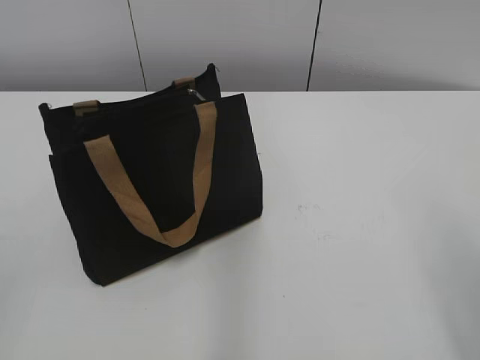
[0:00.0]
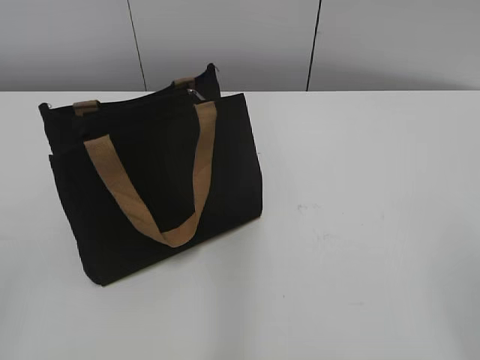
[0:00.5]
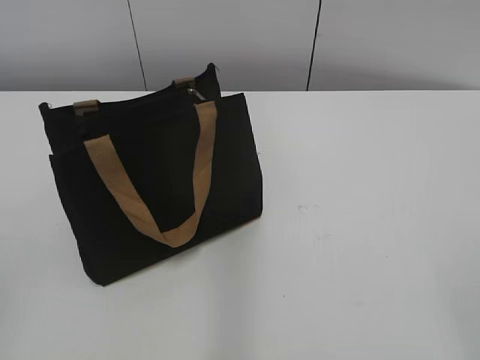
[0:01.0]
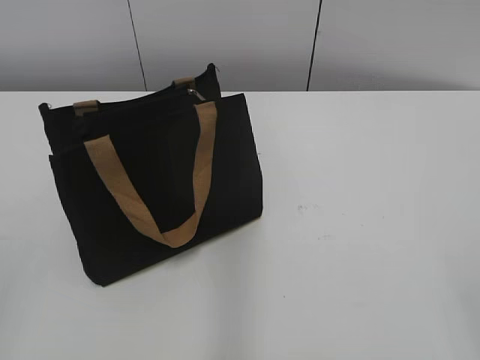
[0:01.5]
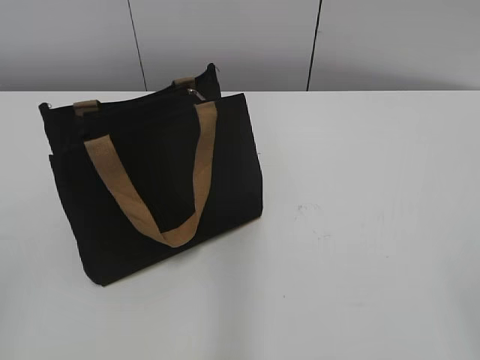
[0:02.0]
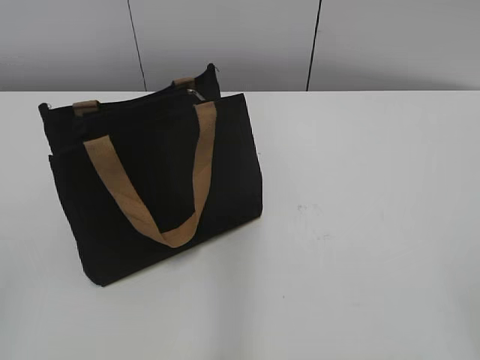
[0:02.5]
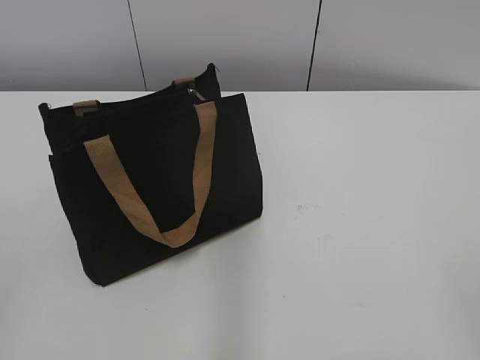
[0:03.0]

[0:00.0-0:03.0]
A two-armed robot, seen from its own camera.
0:01.5 to 0:03.0: Both grippers stay about where they are.

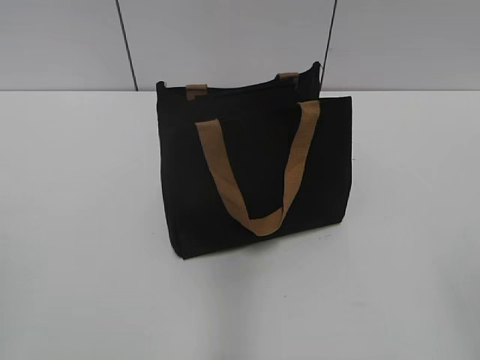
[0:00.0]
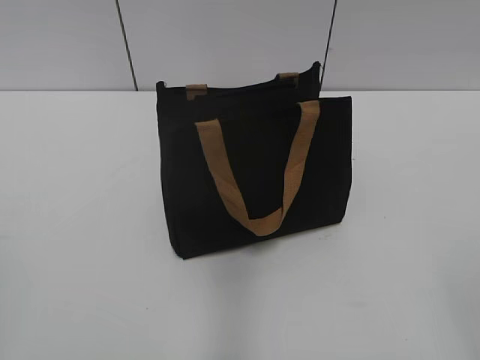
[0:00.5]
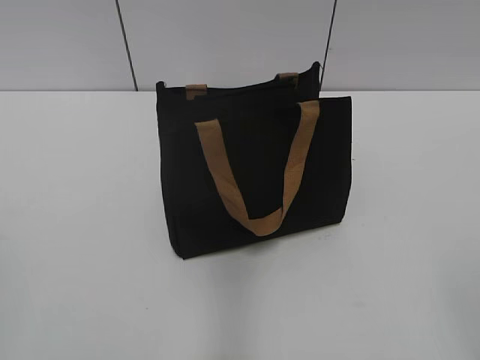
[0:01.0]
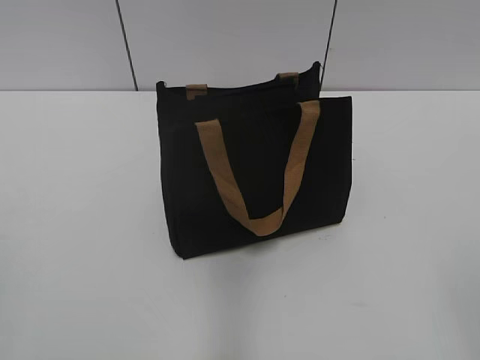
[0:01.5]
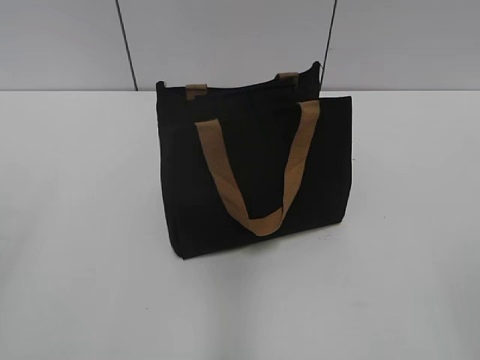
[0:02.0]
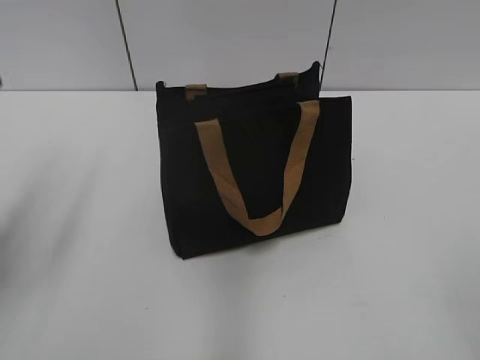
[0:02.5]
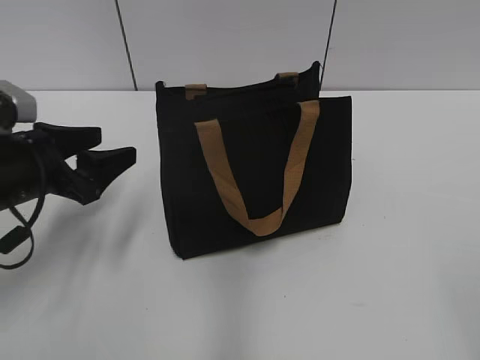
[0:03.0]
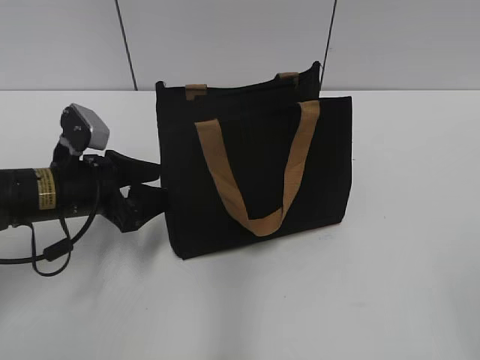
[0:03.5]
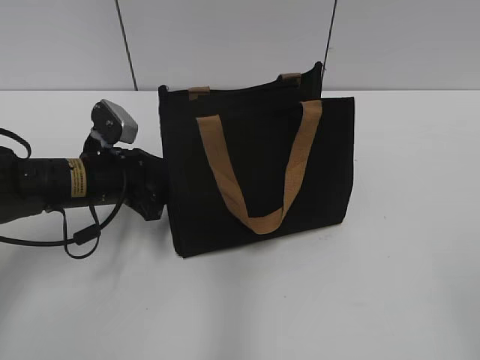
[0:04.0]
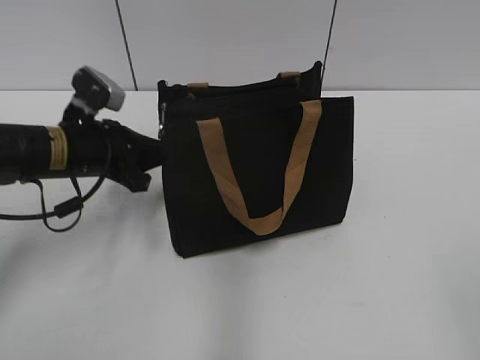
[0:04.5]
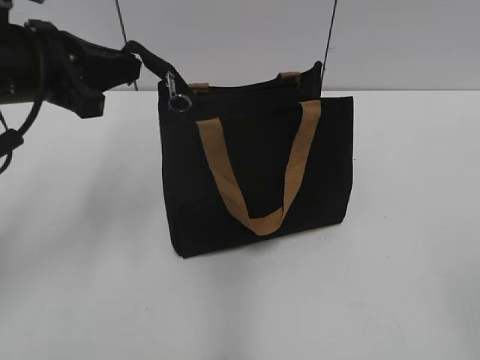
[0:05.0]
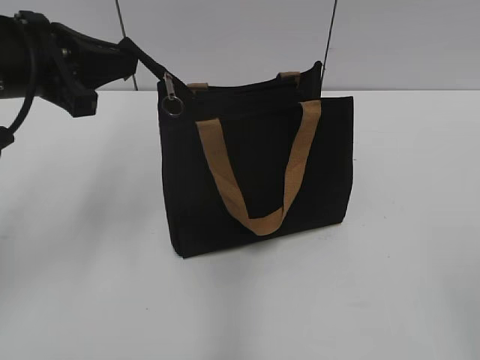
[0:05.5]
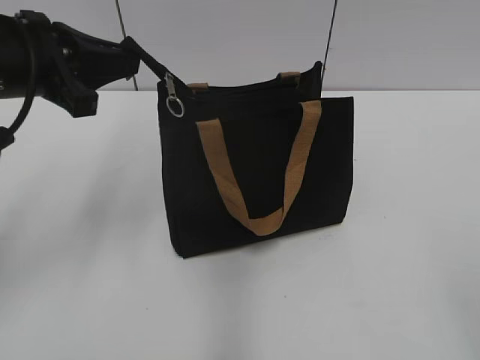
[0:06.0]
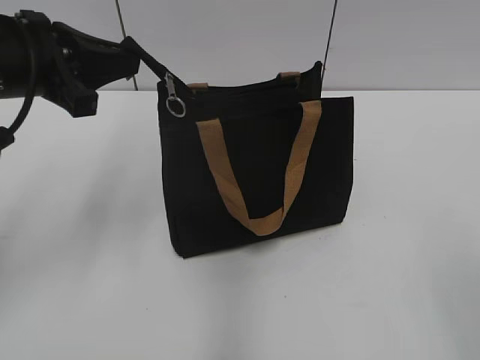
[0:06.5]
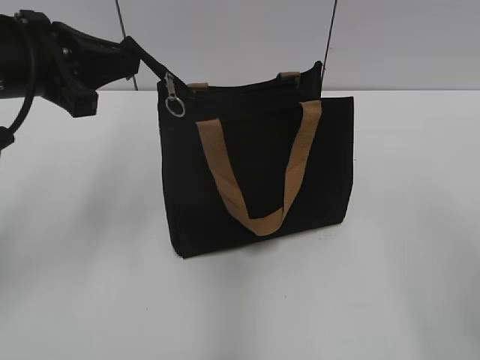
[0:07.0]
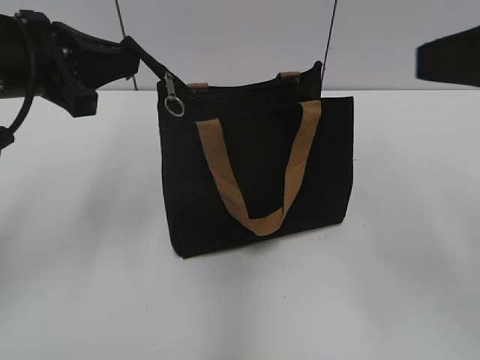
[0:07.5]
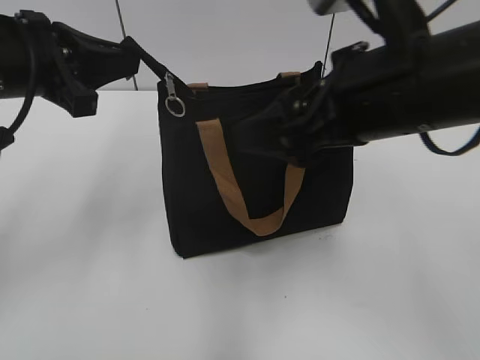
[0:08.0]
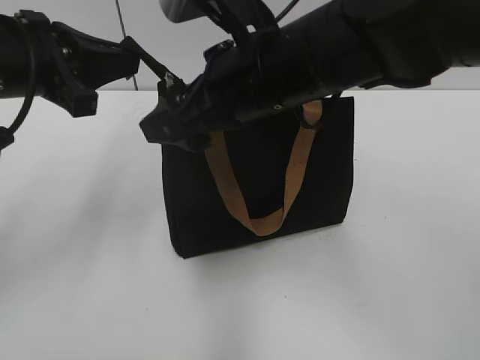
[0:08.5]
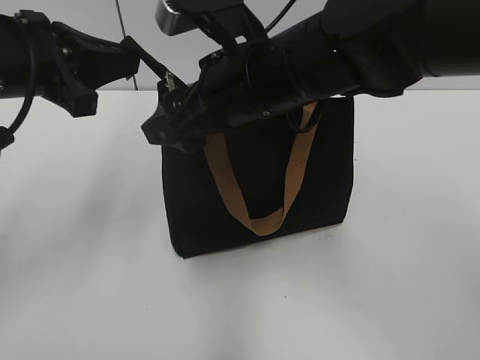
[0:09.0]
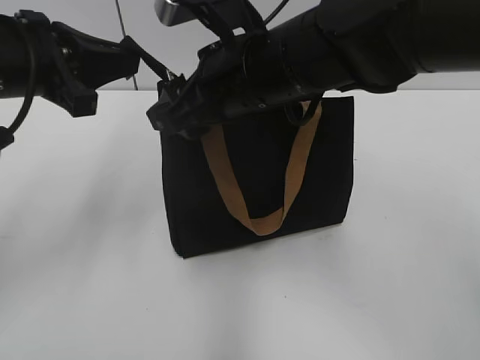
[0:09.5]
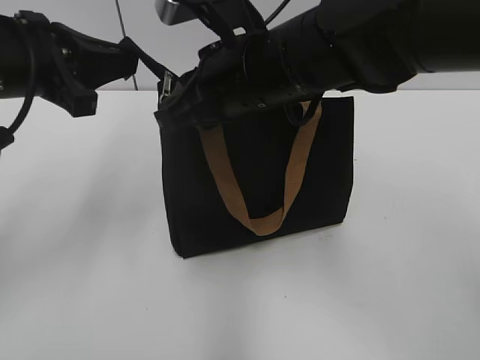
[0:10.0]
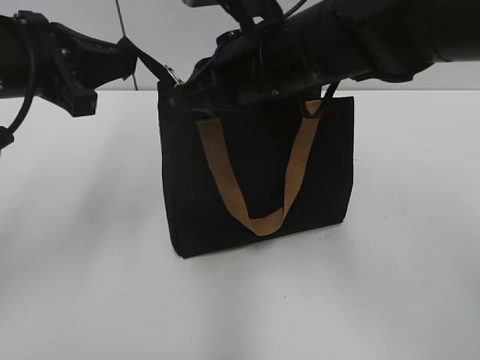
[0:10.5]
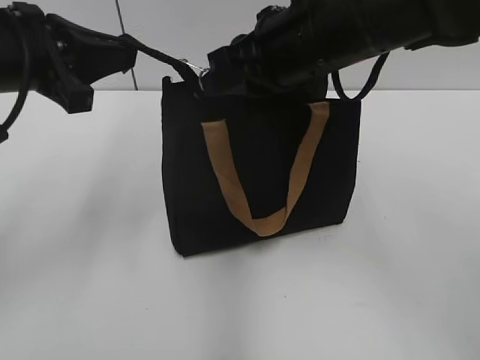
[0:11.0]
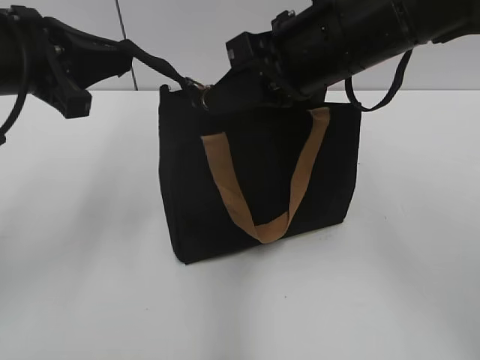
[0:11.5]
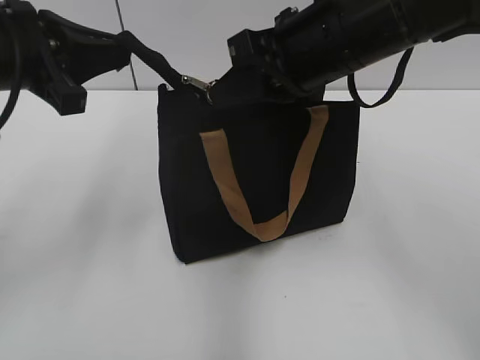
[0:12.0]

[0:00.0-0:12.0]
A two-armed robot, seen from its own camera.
0:02.0 to 0:04.0: The left gripper travels forward, downward and to the right by roughly 40 cm.
0:04.0 to 0:06.0: The left gripper is displaced upward by some 15 cm, and closes up.
0:06.0 to 0:08.0: The right gripper shifts approximately 25 cm forward and to the left.
0:08.0 to 0:10.0: The right gripper shifts approximately 15 cm to the left and forward, and closes its fingers.
0:10.0 to 0:12.0: The right gripper shifts approximately 5 cm to the right.

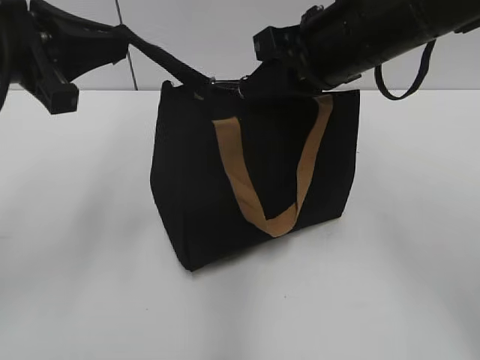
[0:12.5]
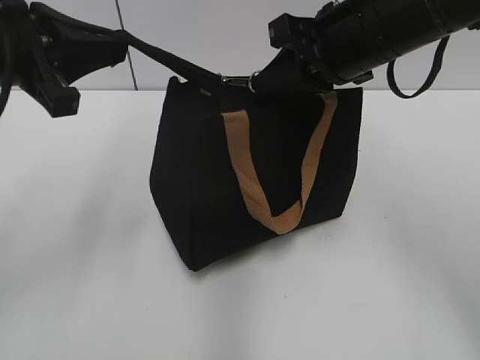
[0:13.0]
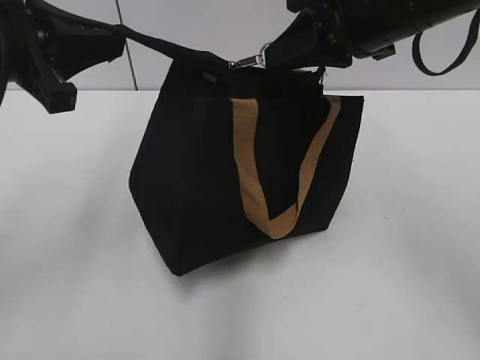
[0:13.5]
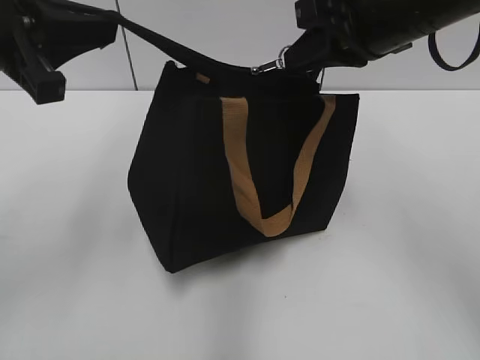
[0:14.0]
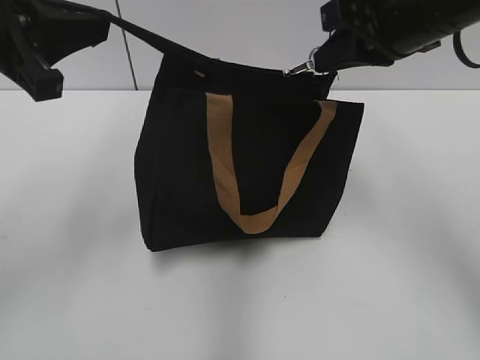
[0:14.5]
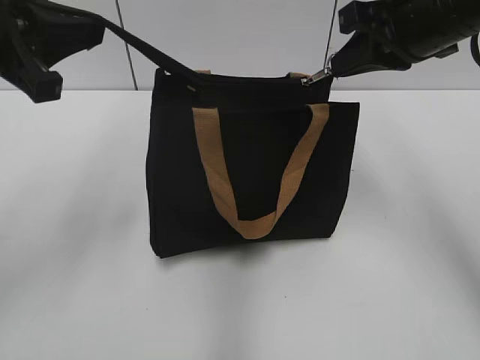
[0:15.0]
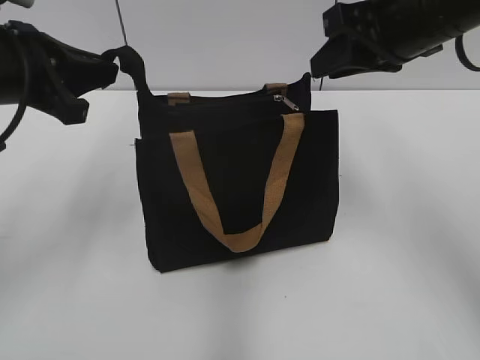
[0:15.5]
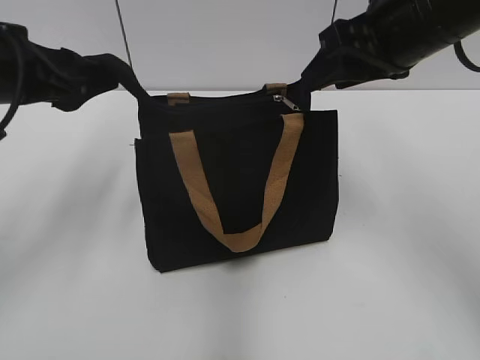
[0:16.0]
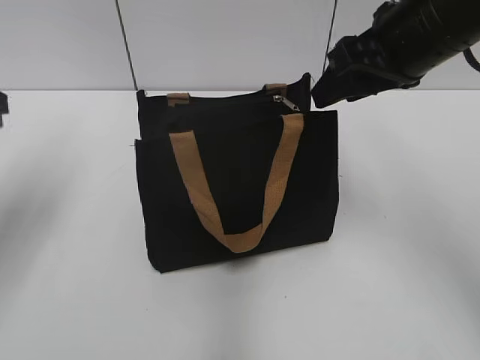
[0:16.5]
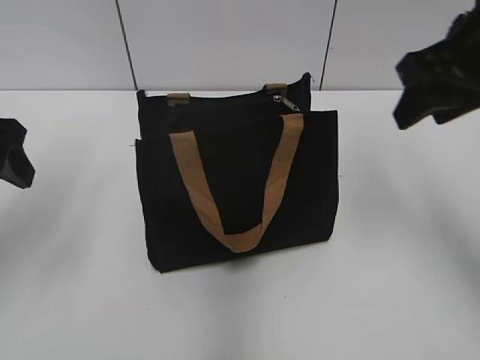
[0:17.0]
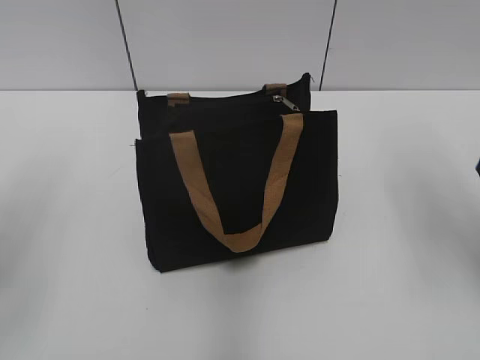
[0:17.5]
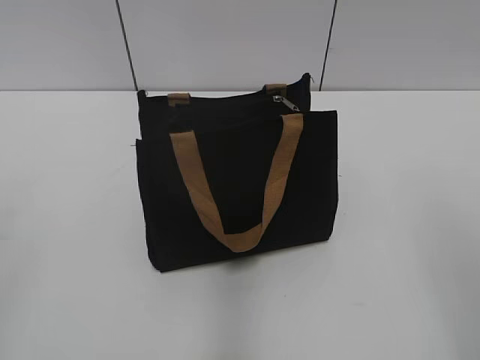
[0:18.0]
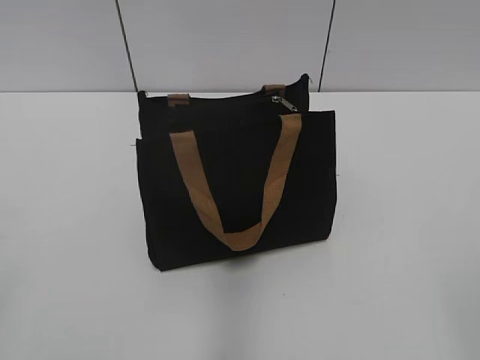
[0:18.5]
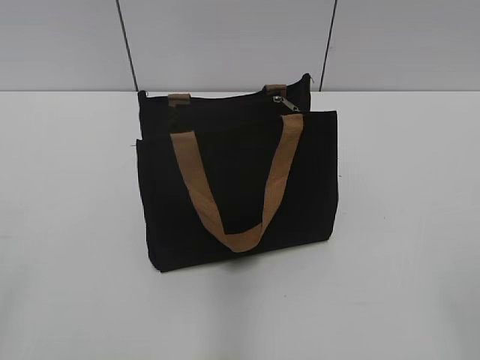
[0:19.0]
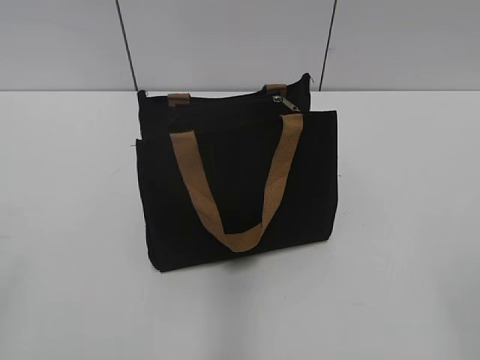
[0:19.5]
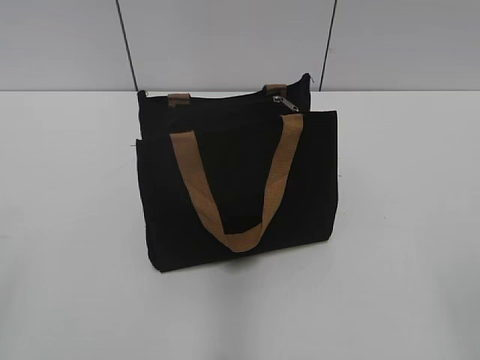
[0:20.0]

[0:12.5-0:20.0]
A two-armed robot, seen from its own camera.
Step, 0:12.5 to 0:15.0: Zip up the bag with your right hand.
Step, 0:15.5 to 0:16.0: Grab the zipper with your left hand.
0:12.5 to 0:14.5: The right gripper shifts some 5 cm to the right.
0:14.5 to 0:16.5: The right gripper opens up; the left gripper is displaced to the left by some 5 cm, and opens up.
0:16.5 to 0:18.0: The left gripper goes some 20 cm backward. The right gripper goes approximately 20 cm backward and to the right.

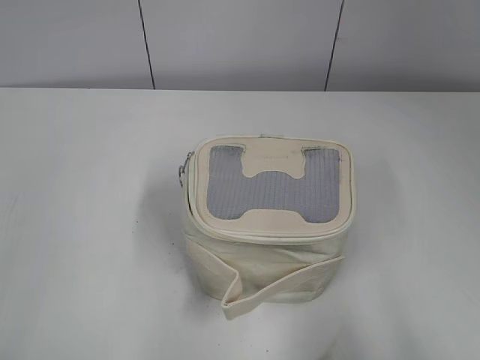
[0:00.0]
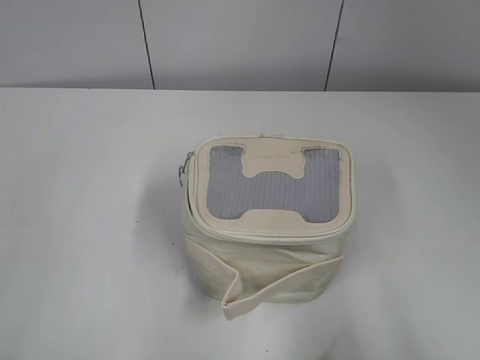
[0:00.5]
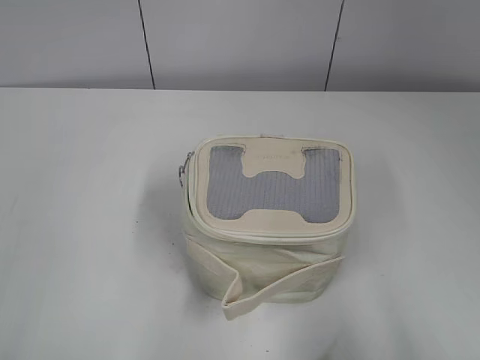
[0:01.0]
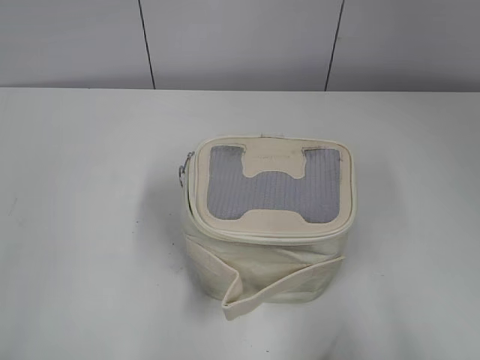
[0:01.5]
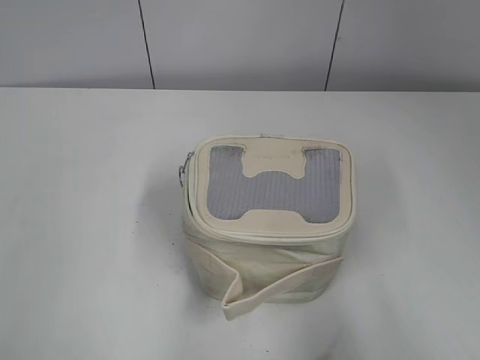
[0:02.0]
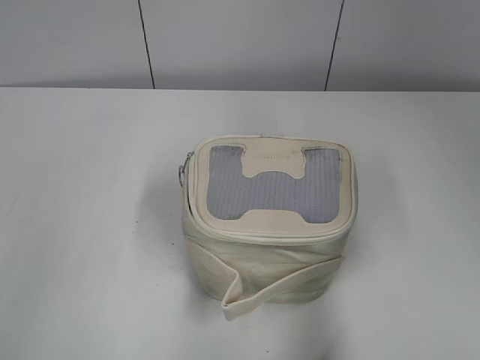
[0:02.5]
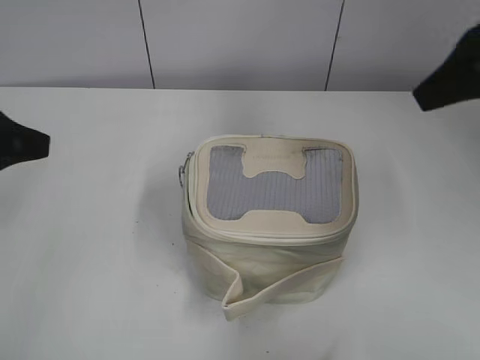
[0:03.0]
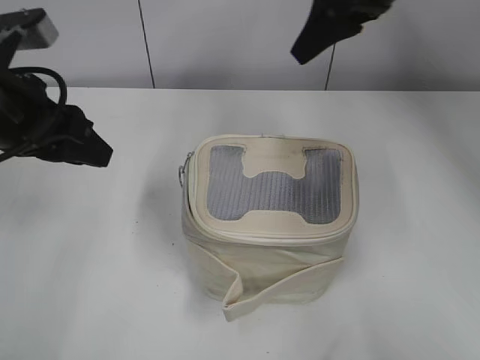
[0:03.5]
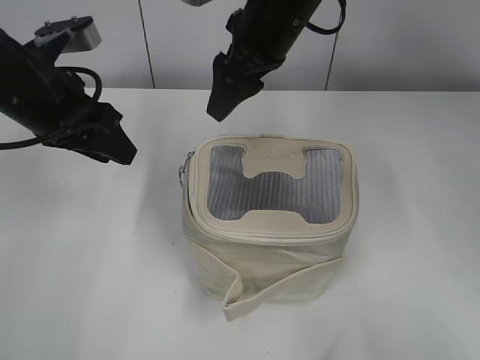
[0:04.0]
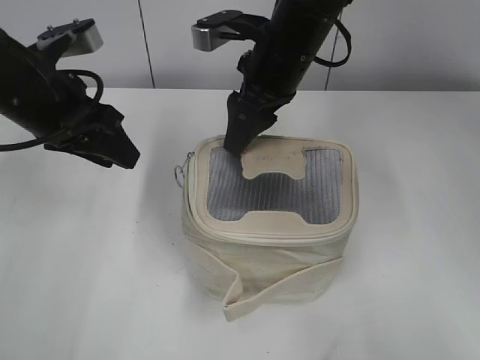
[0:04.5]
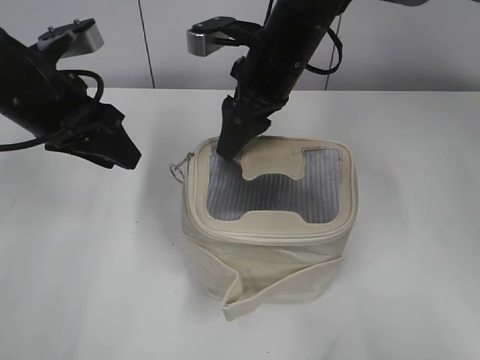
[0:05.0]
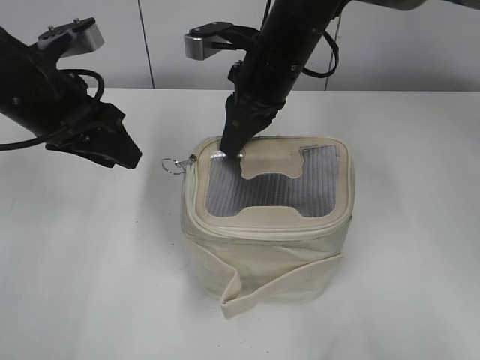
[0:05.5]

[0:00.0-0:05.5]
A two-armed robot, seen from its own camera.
0:02.0 to 0:03.5: The right gripper heads forward and to the left, covering approximately 40 cm; the left gripper is displaced forward and to the right by approximately 25 cm.
0:03.5 to 0:05.5: The right gripper travels to the left and downward by about 15 cm, and closes up.
